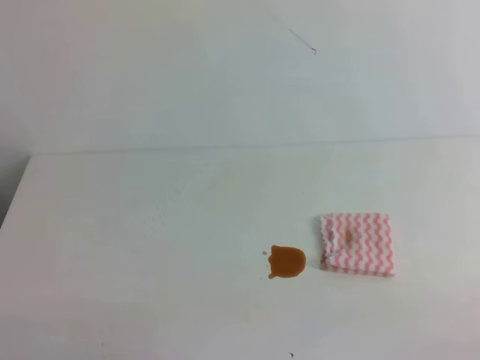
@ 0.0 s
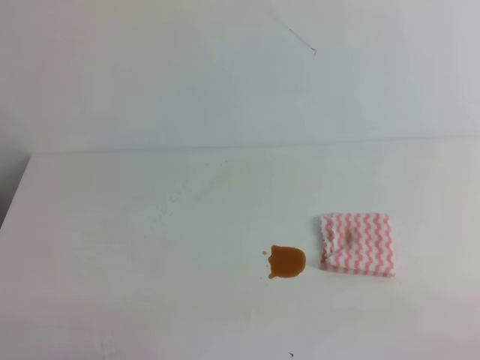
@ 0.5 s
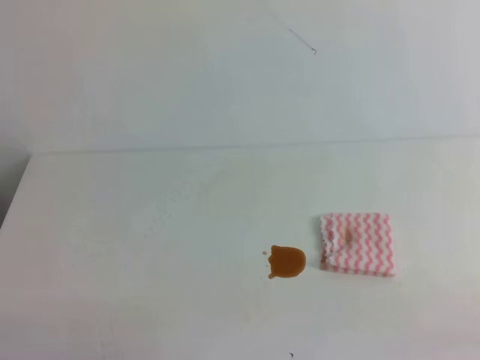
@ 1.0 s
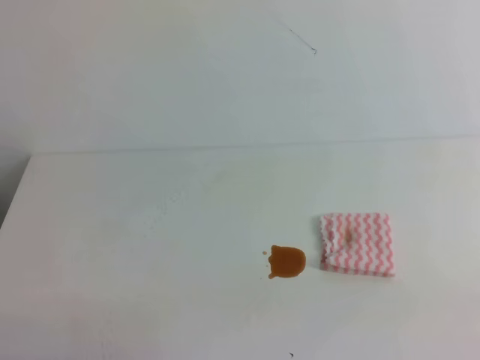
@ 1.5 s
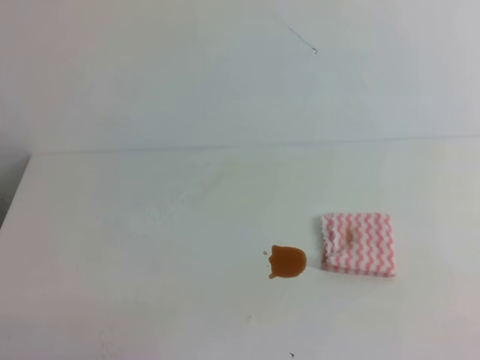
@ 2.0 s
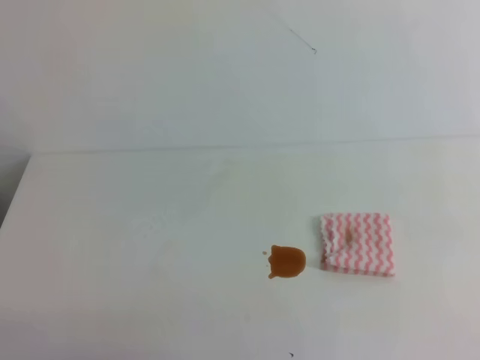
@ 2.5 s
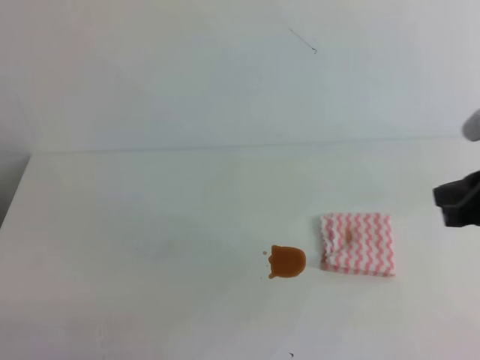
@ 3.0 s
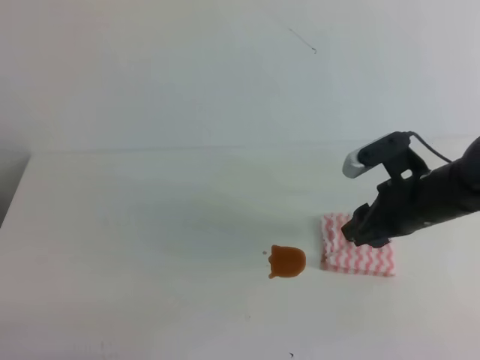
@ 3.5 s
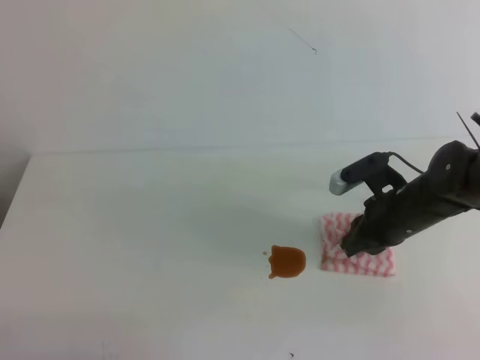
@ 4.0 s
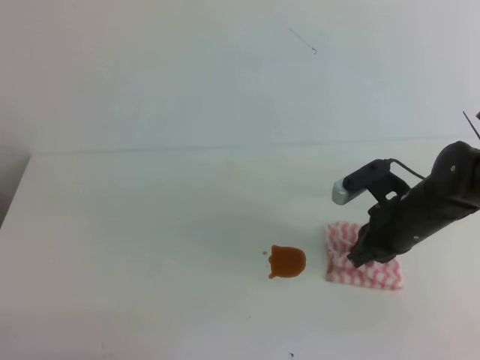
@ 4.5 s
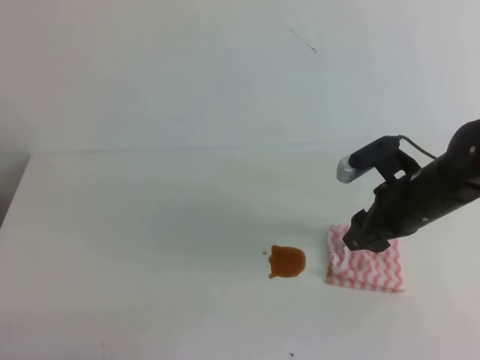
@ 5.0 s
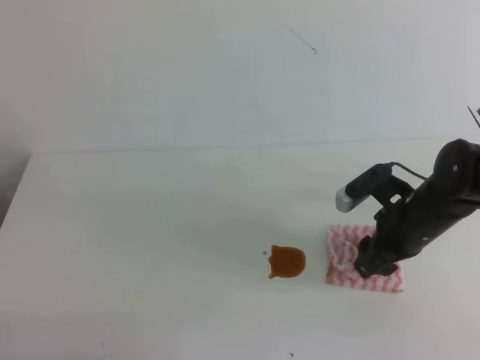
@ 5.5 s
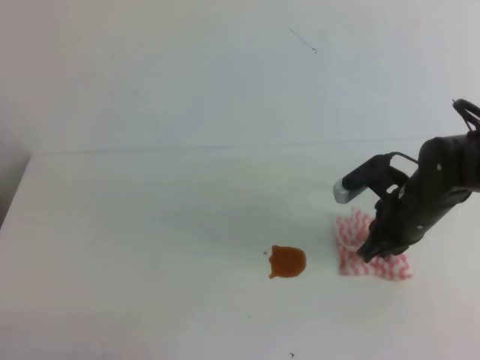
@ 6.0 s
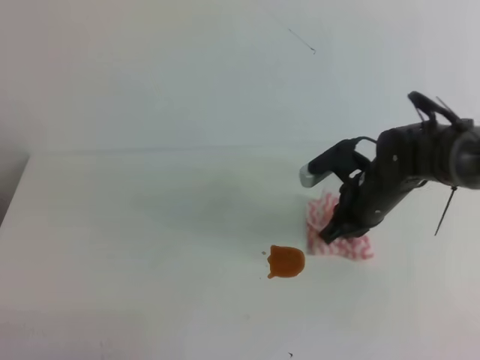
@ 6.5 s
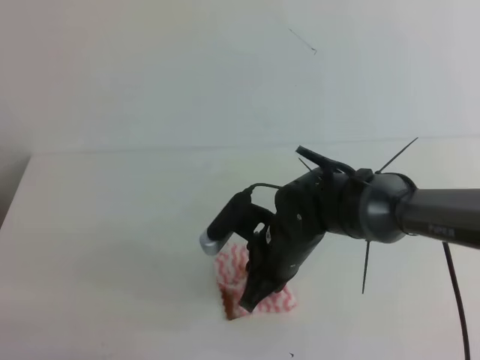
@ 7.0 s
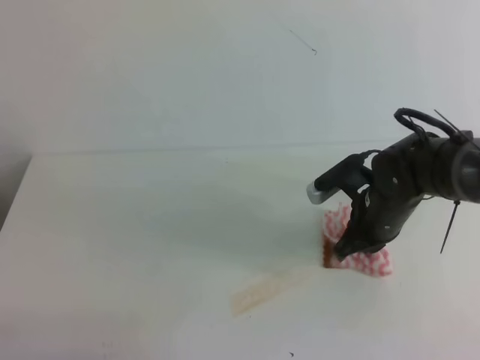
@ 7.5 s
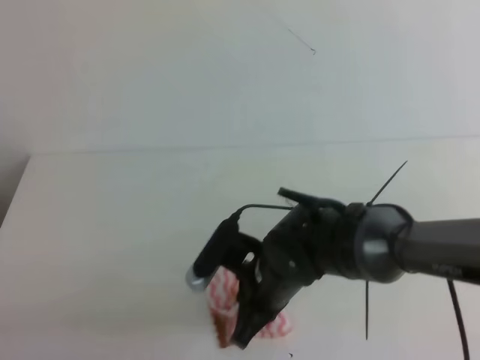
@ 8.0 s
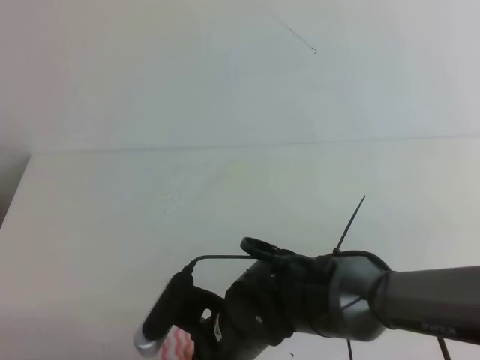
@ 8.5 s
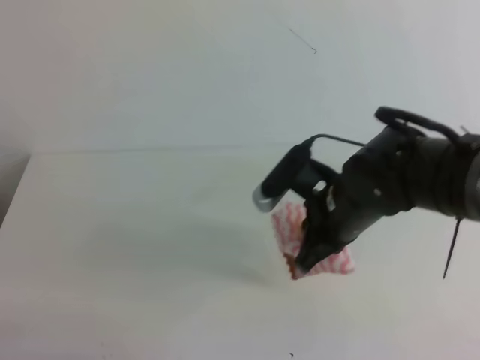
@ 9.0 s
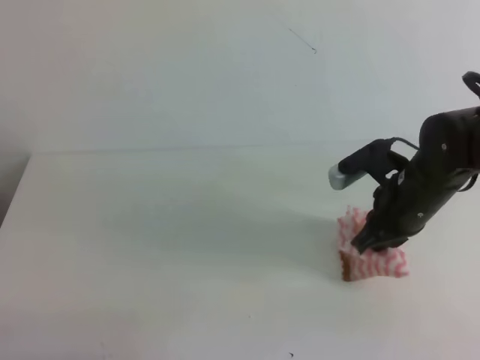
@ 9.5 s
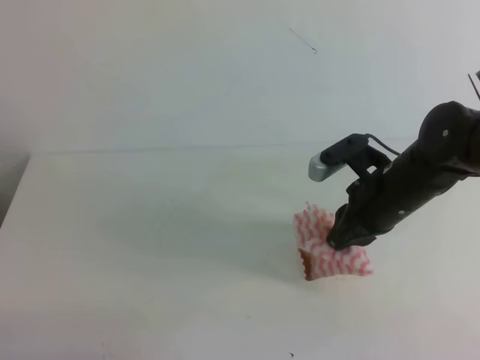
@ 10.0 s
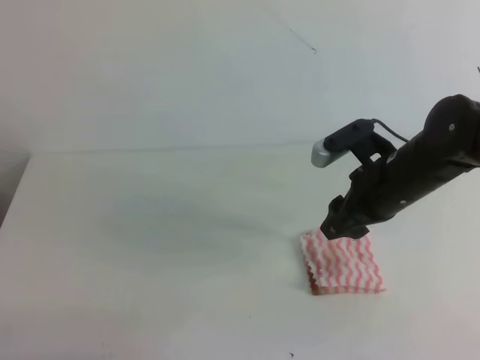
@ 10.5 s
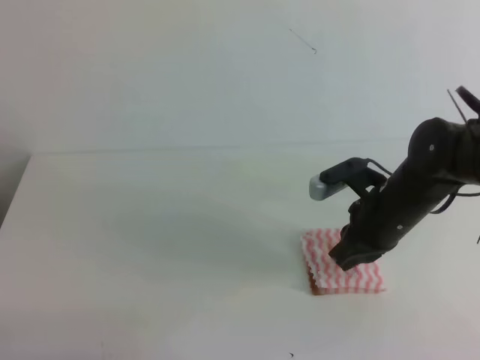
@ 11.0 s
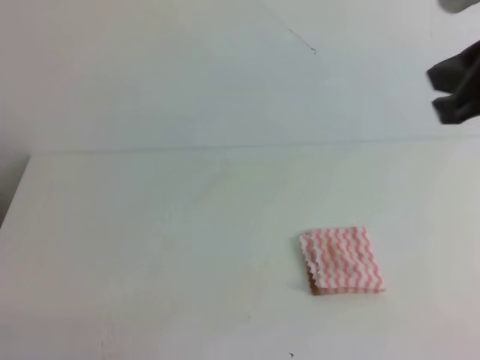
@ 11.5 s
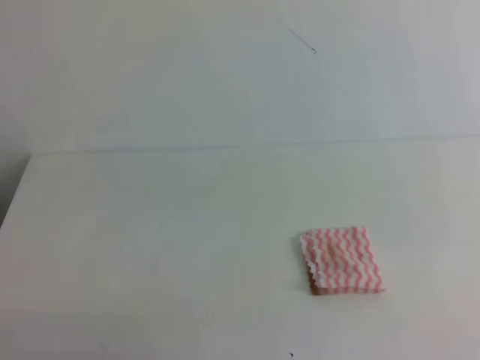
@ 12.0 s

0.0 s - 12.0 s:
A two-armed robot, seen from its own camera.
2.0 s - 4.0 s: The right gripper is displaced forward, downward and to the left by approximately 40 cm, and opens, then closes again.
4.0 s - 6.0 s: The right gripper opens, then closes once more.
6.0 s - 8.0 s: The right gripper swings left and right, about 15 cm each way, with 2 reversals.
8.0 s - 10.0 s: The right gripper shifts roughly 20 cm to the right, upward and forward, and opens.
10.0 s - 12.0 s: The right gripper heads backward, upward and to the right, covering roughly 30 cm, and closes.
